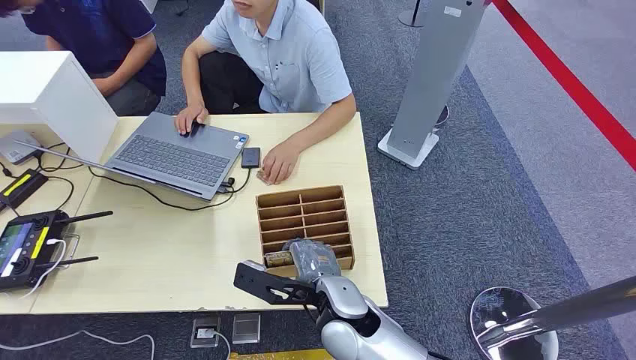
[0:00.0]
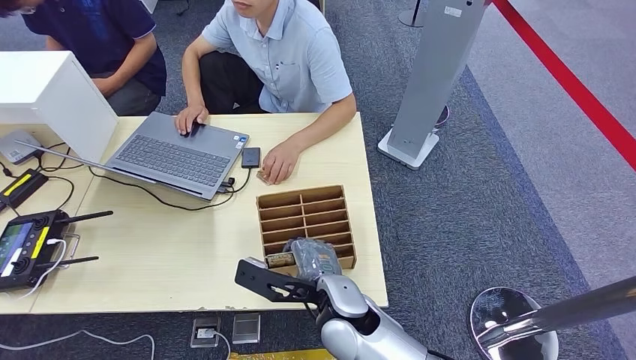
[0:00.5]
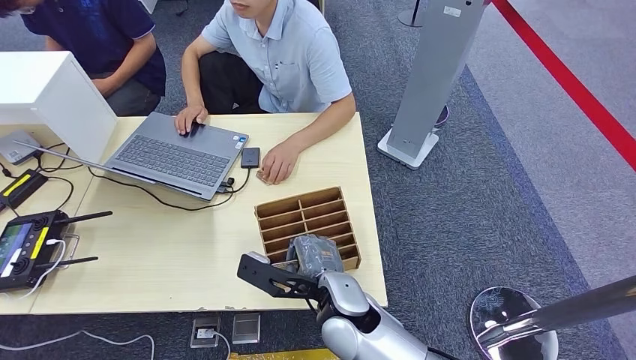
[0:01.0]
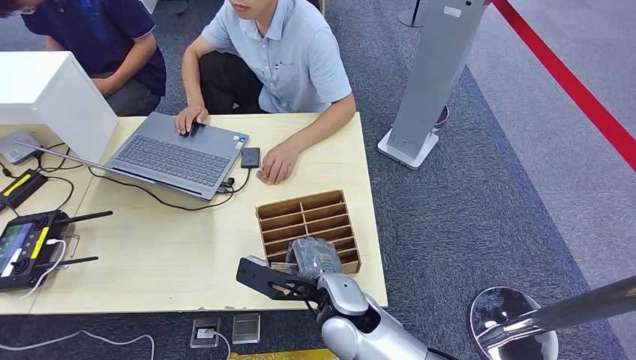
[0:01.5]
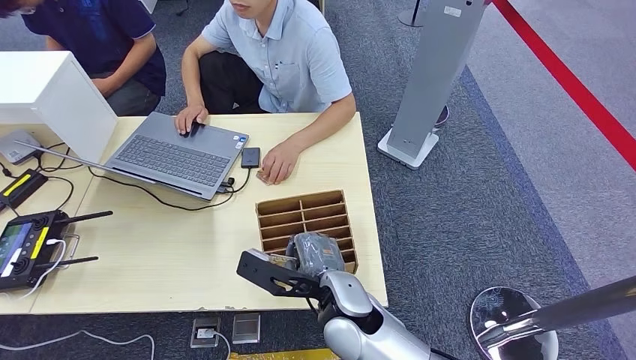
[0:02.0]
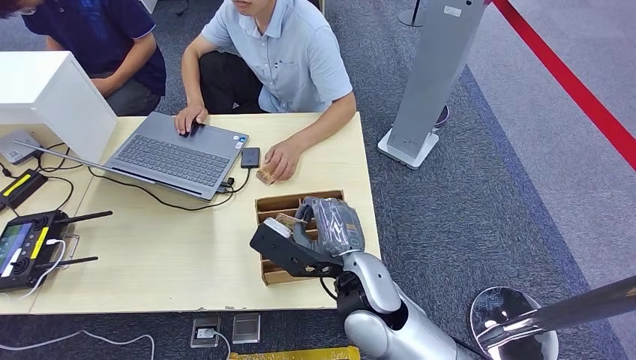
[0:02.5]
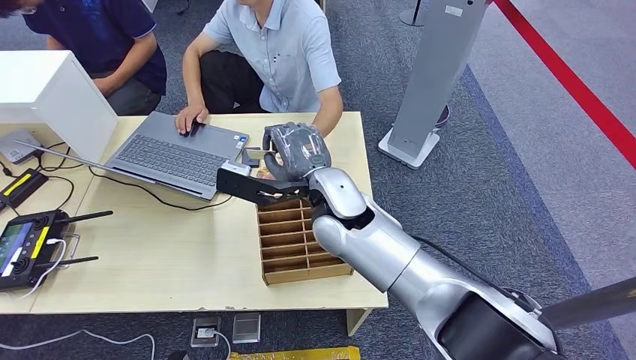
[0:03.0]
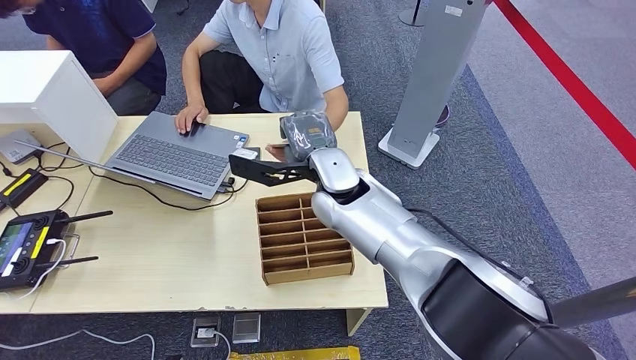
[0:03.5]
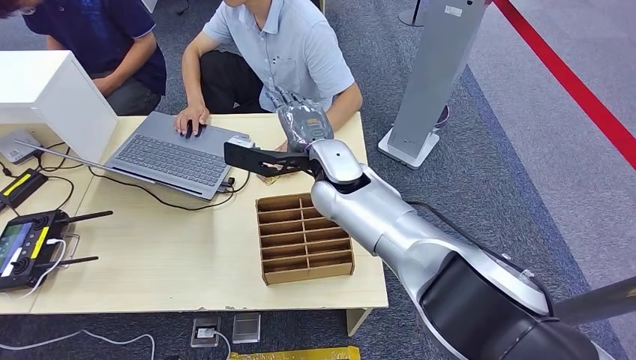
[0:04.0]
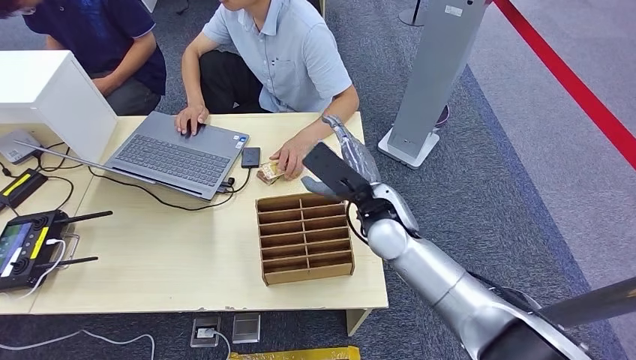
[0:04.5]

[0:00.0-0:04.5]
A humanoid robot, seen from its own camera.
Step, 0:00.0 to 0:02.5: Pick up the key card from the card box.
Step, 0:03.0 to 0:04.5: Hand the key card to the target.
0:02.0 to 0:04.5: The right hand goes some 15 cm forward, to the right and upward.

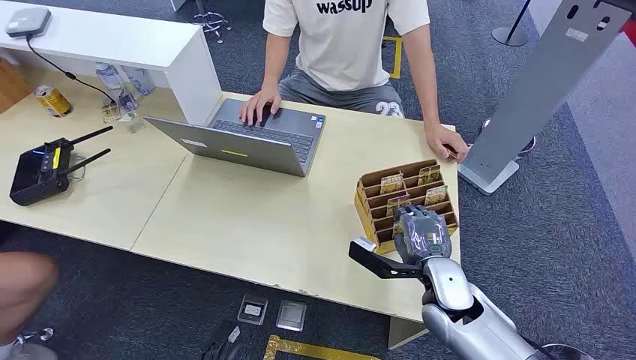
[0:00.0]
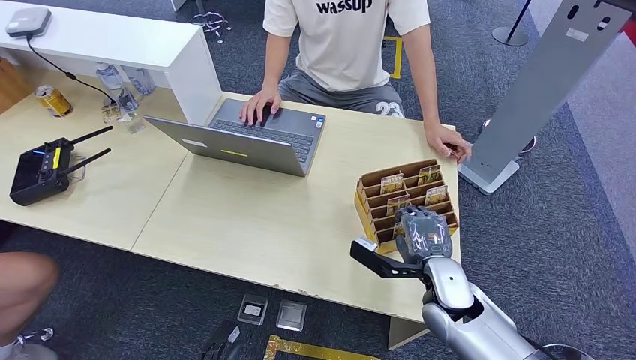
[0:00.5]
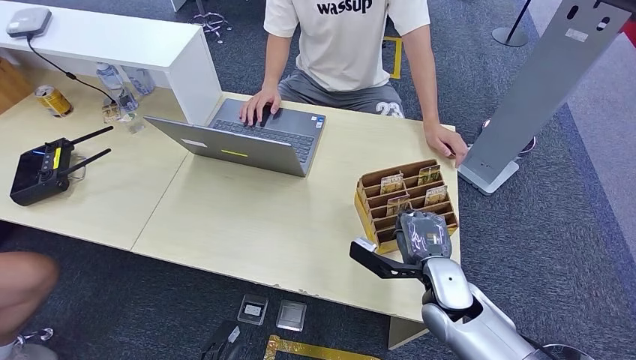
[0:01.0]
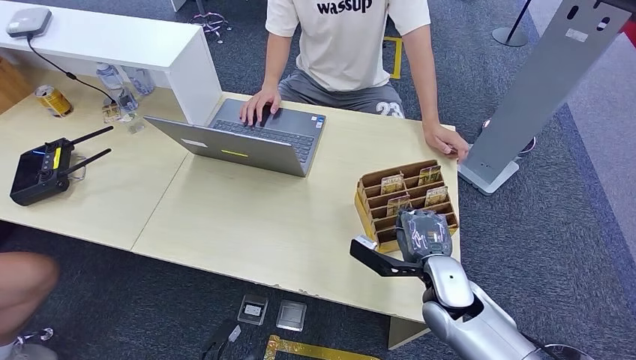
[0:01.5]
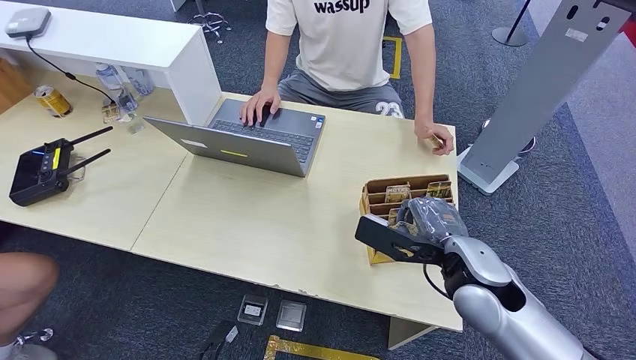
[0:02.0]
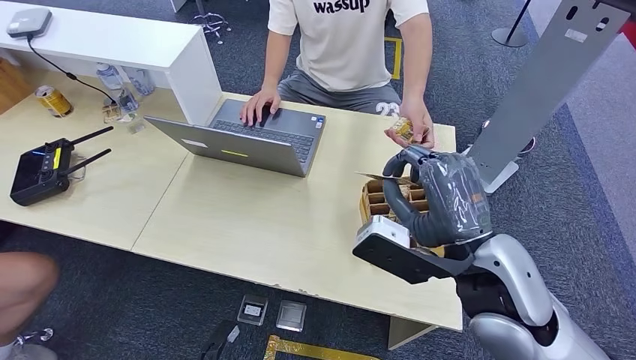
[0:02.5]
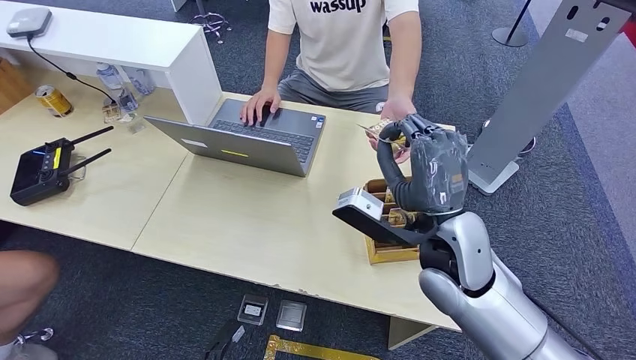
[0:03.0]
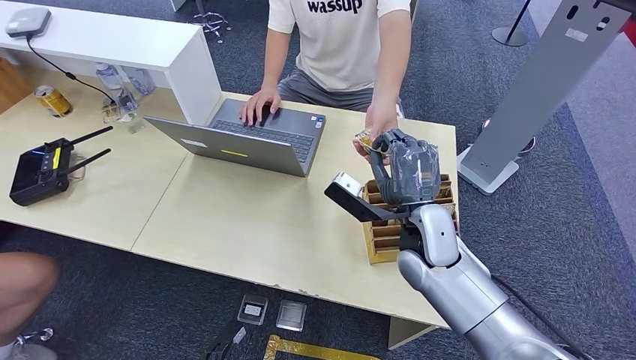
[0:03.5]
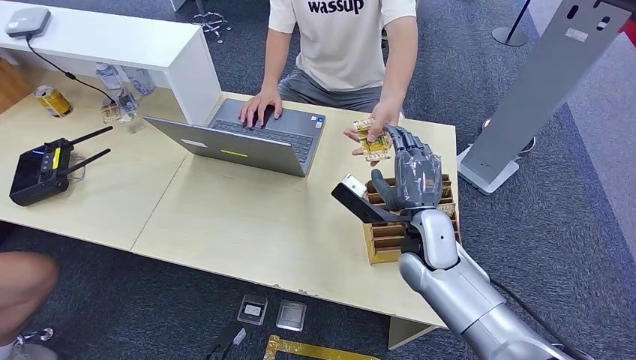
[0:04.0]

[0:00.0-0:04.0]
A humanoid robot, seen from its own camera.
Step, 0:00.0 to 0:01.5: Pick up the key card from the card box.
Step, 0:03.0 to 0:04.0: Hand the key card to the target.
0:02.0 to 0:04.0: The right hand shifts roughly 5 cm to the left, and reaches approximately 10 cm upward, then returns.

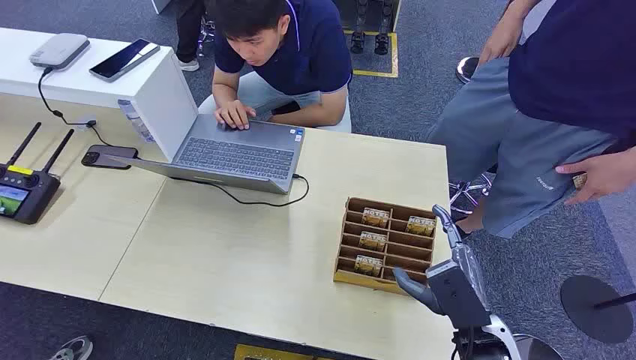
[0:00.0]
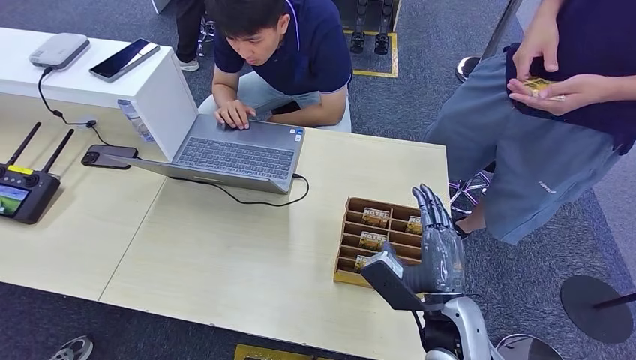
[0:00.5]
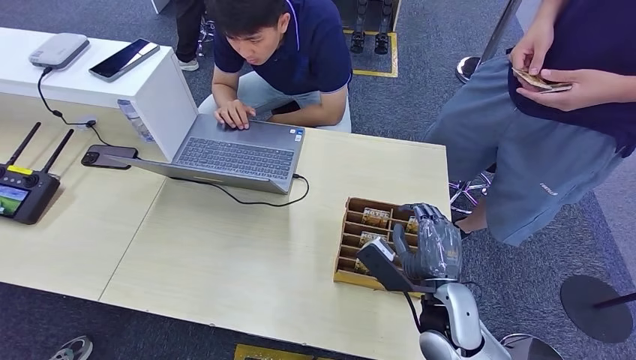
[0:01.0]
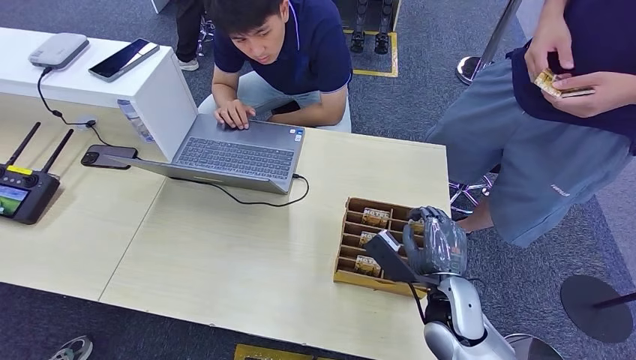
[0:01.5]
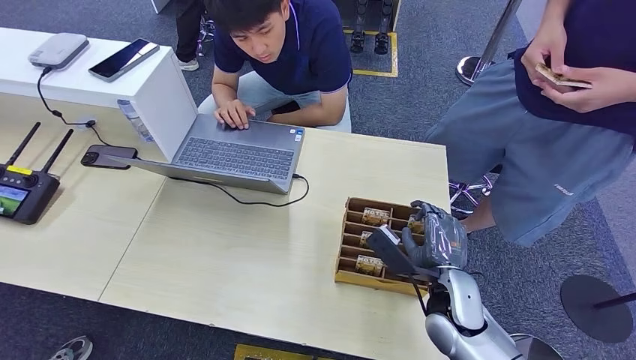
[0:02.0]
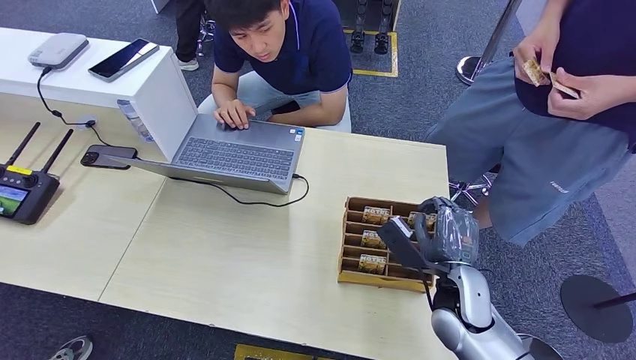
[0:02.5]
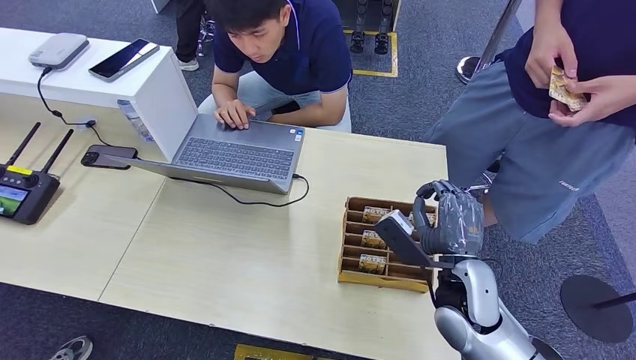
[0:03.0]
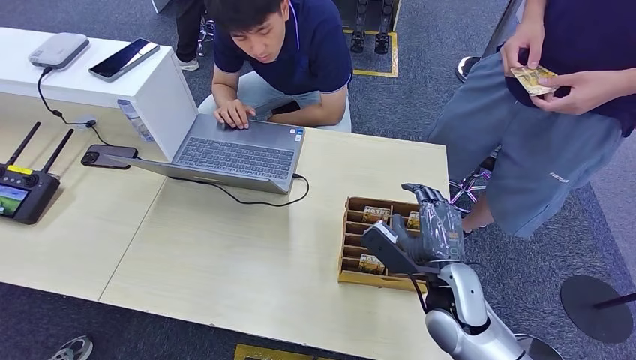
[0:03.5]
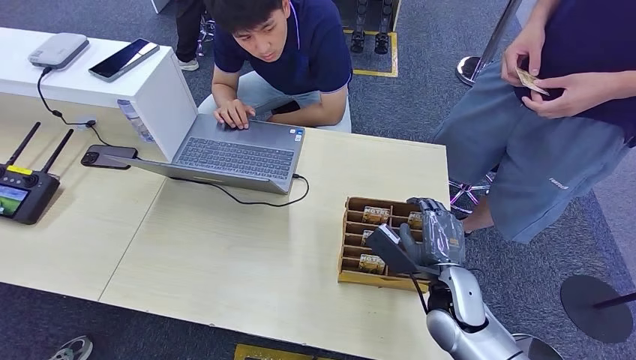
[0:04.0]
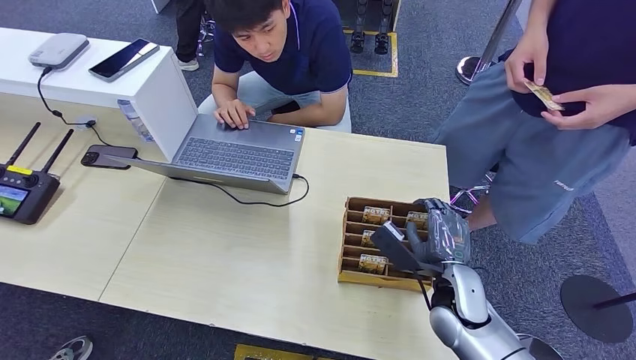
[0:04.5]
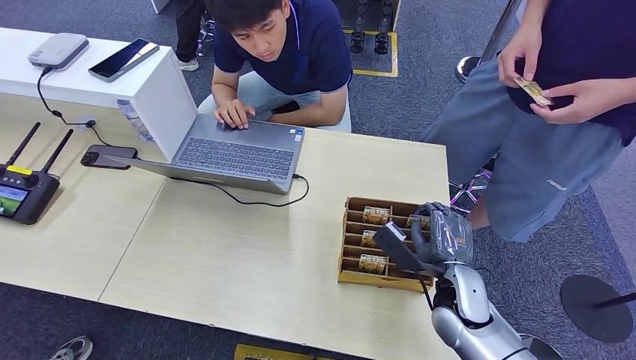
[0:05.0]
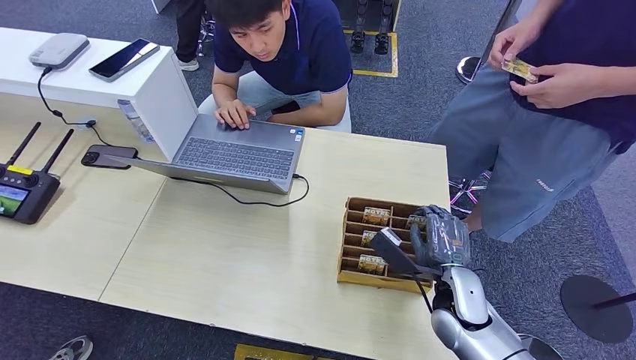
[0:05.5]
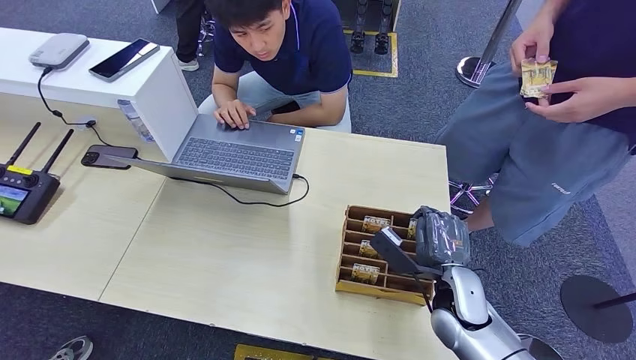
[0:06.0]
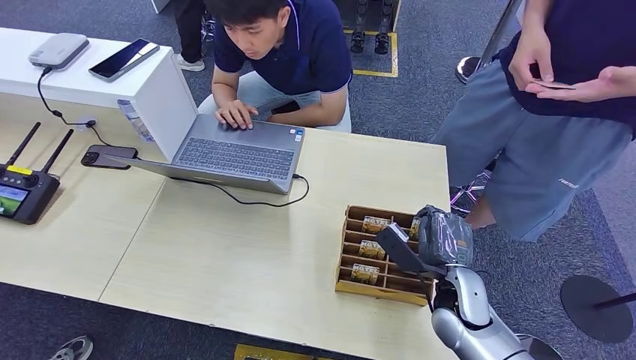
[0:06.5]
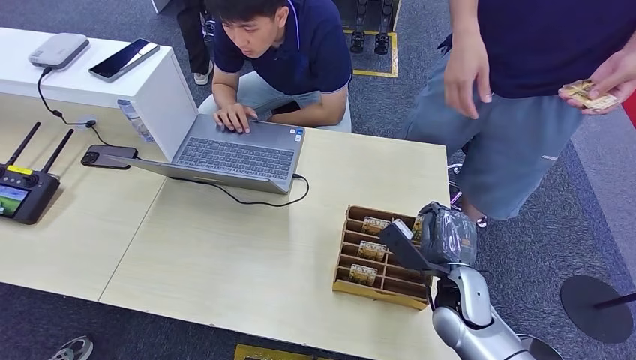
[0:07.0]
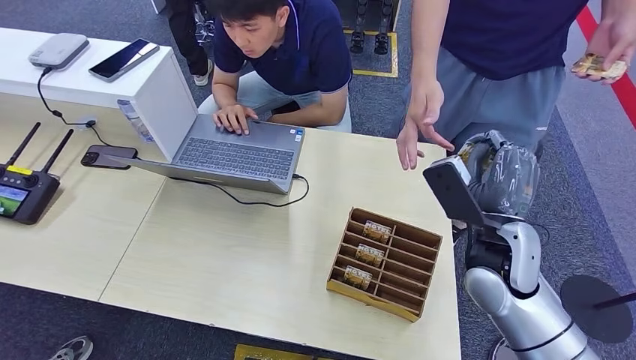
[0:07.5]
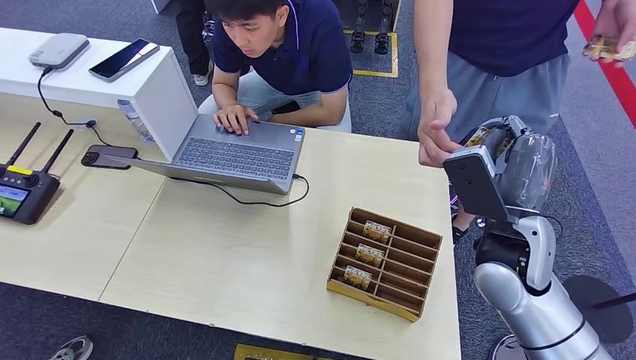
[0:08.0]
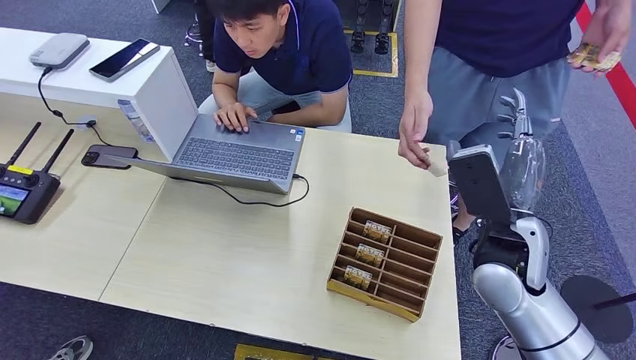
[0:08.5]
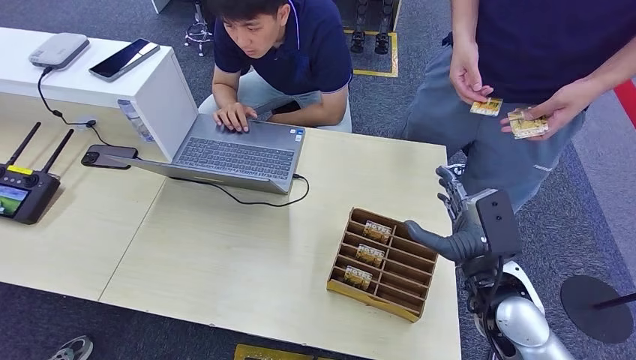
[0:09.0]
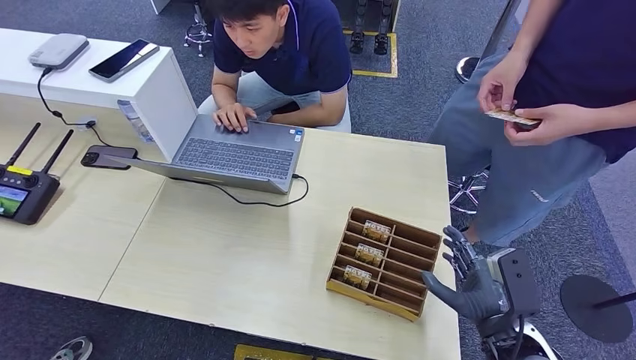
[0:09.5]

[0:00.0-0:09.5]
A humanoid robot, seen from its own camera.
Step, 0:00.0 to 0:07.0: Pick up the key card from the card box.
Step, 0:07.5 to 0:09.5: Hand the key card to the target.
0:02.0 to 0:05.5: There are only small adjustments of the hands.
